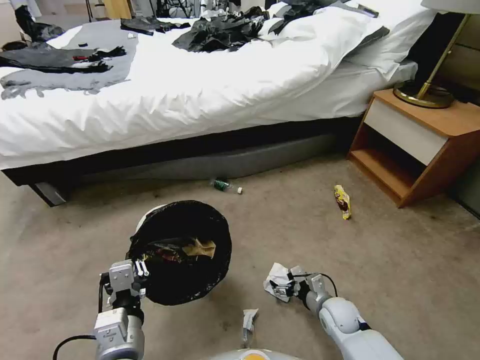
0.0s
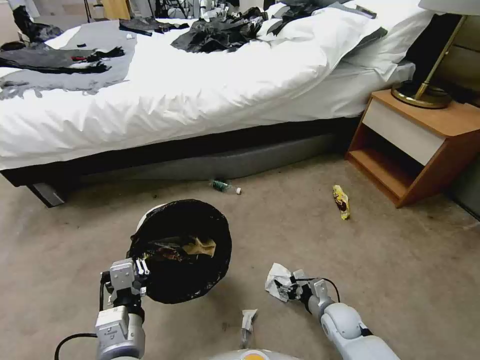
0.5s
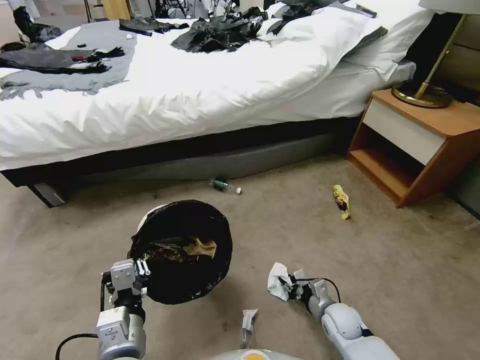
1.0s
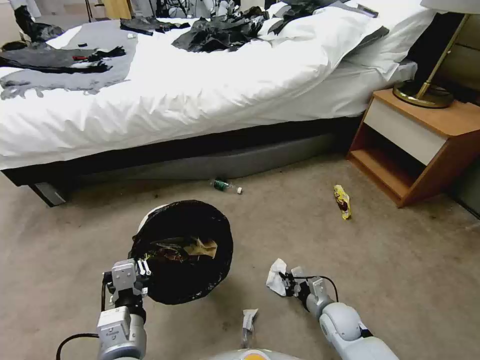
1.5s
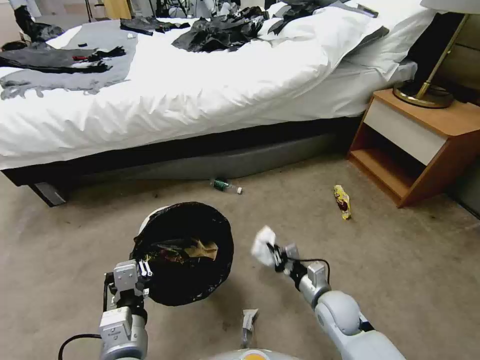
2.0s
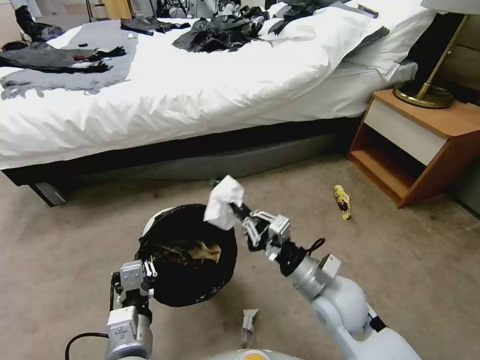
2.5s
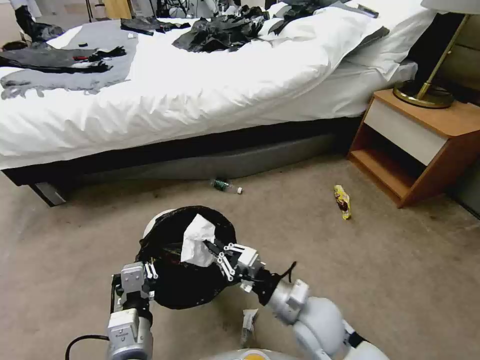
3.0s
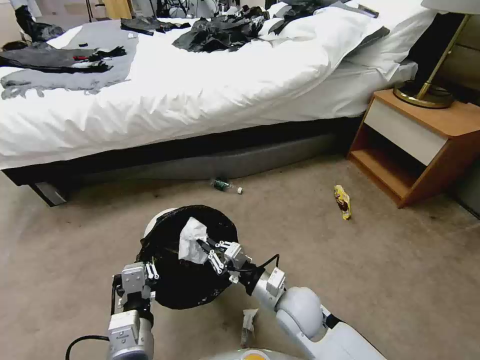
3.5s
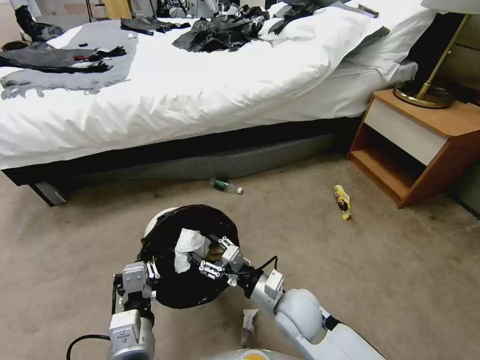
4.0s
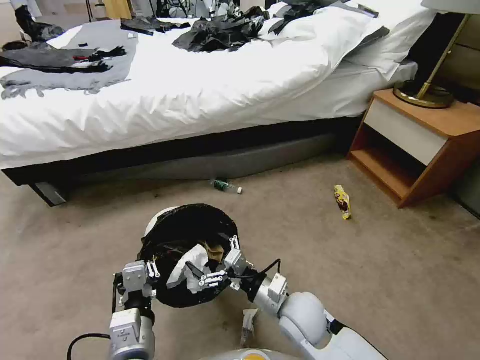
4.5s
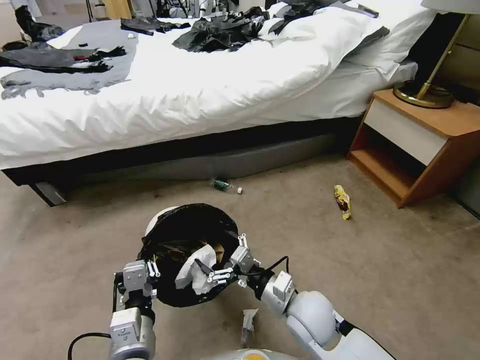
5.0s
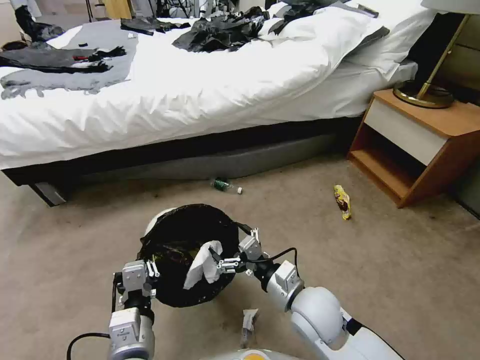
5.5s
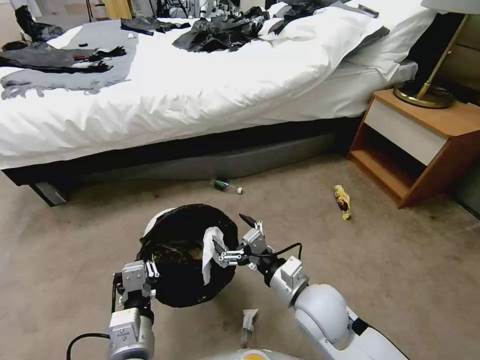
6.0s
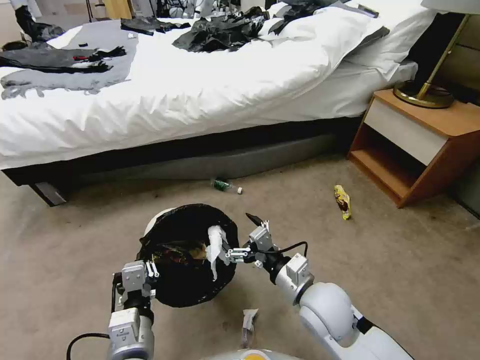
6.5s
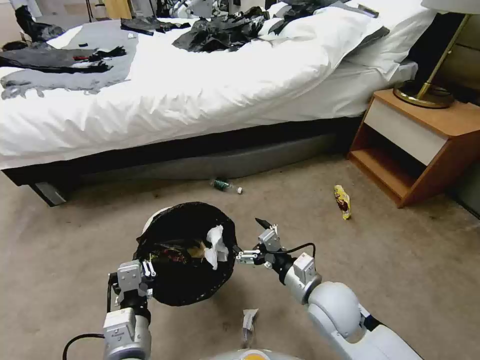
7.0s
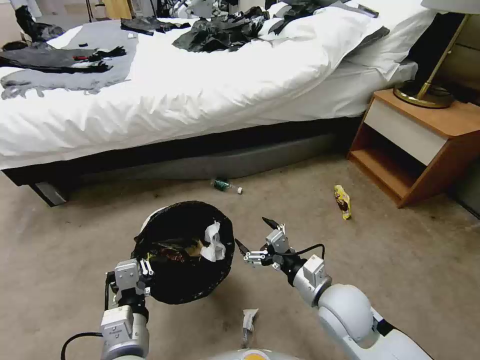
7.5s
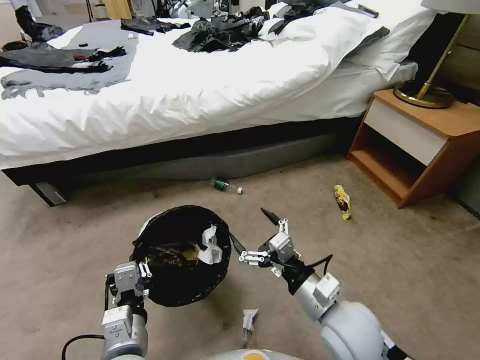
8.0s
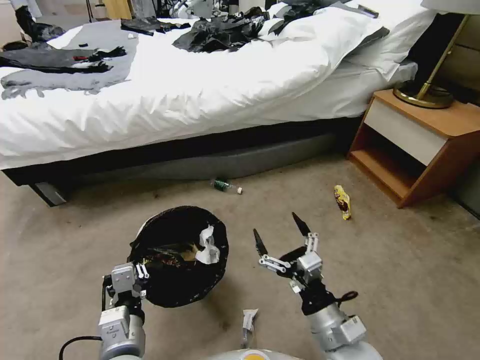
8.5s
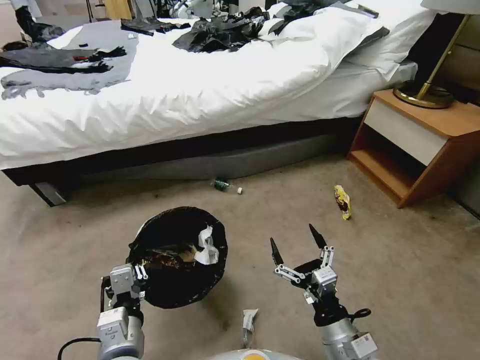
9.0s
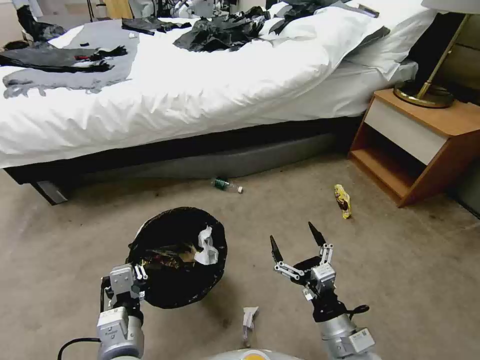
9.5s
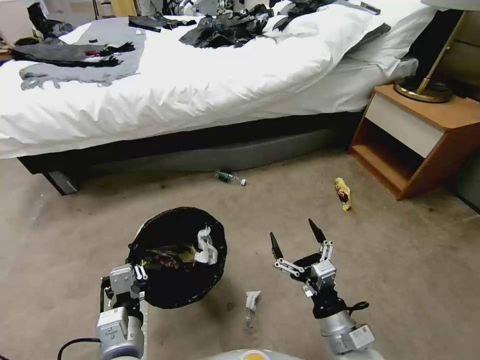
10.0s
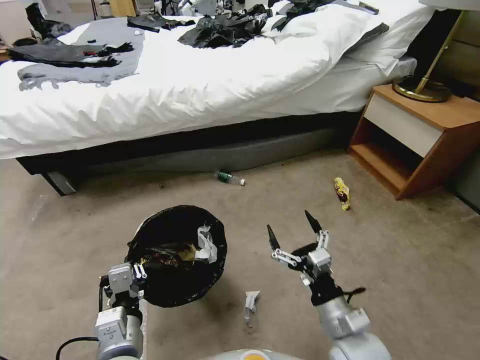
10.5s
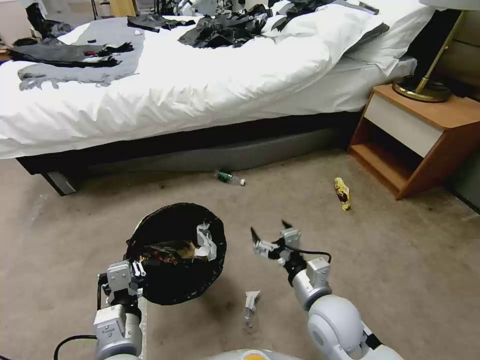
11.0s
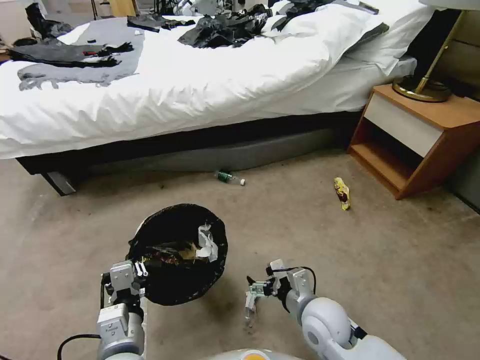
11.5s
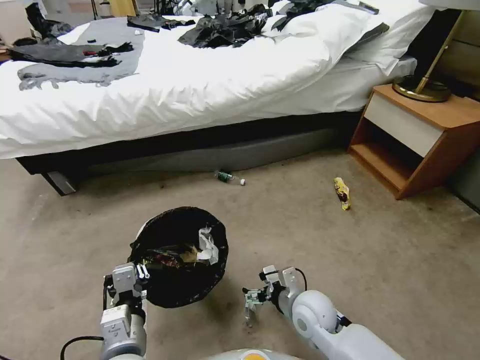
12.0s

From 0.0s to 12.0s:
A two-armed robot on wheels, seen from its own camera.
Task of the whole recording: Pick up the trash bin, then pick up the garbage from the floor and place it into the trash bin.
From 0.0s to 2.0s: The right gripper goes roughly 10 cm upward, and closes its fingers.
From 2.0s to 4.0s: The right gripper goes about 15 cm to the left and upward, and opens its fingers.
From 4.0s to 6.0s: The right gripper heads upward, covering about 5 cm, and opens.
From 6.0s to 8.0s: The right gripper shifts by some 5 cm.
From 8.0s to 10.0s: The right gripper shifts approximately 10 cm downward and backward.
From 10.0s to 12.0s: The right gripper shifts roughly 10 cm forward and to the left.

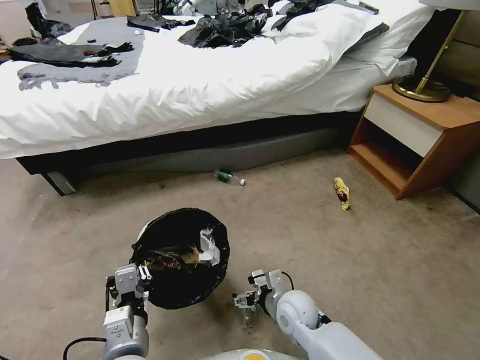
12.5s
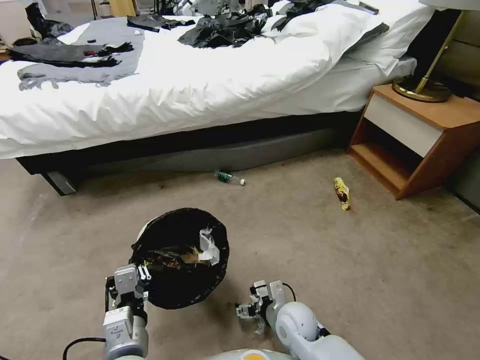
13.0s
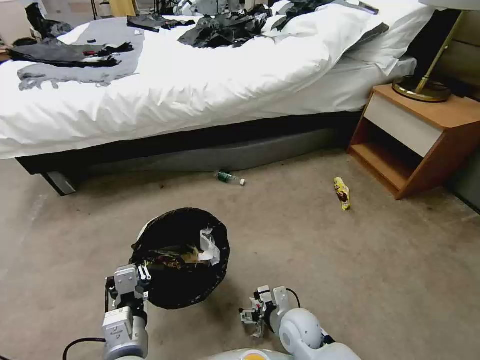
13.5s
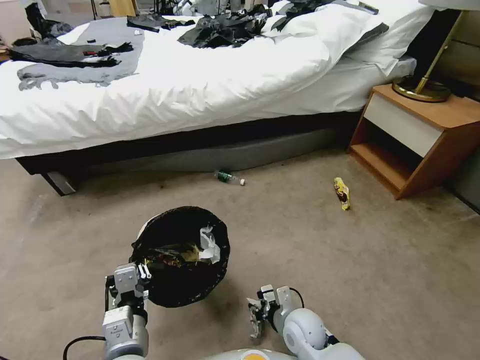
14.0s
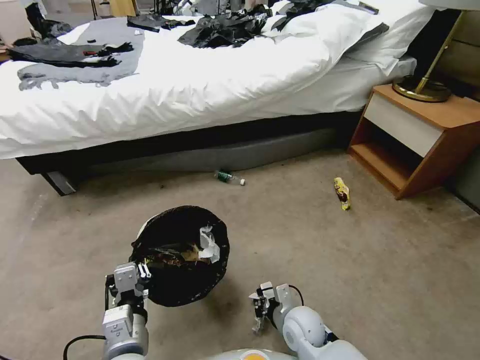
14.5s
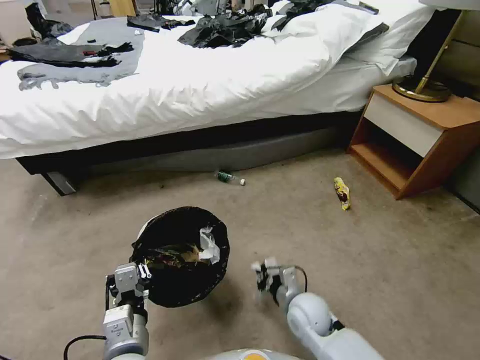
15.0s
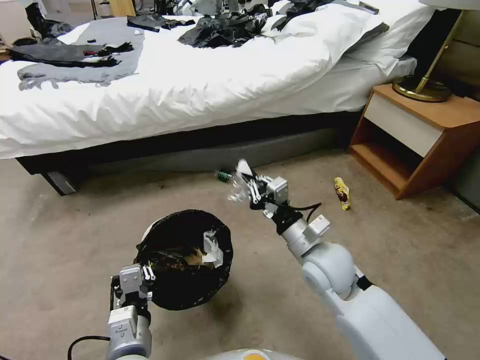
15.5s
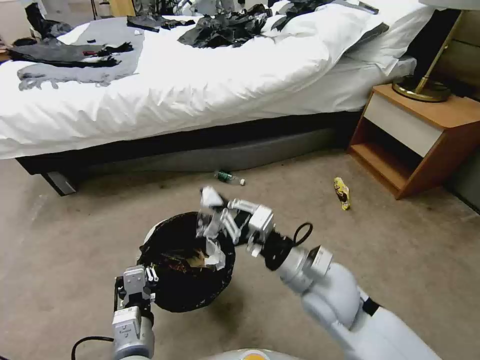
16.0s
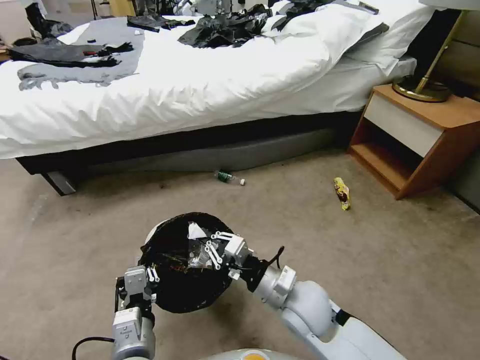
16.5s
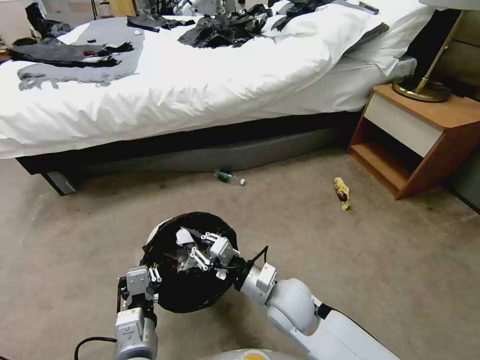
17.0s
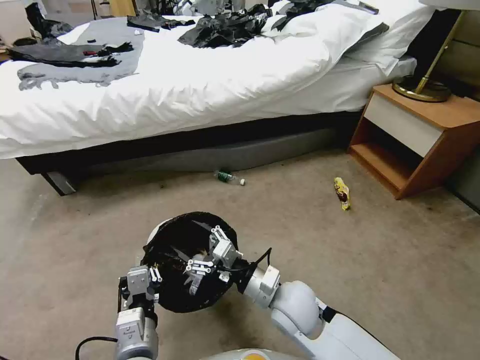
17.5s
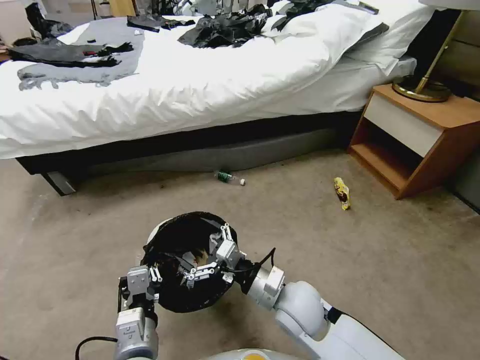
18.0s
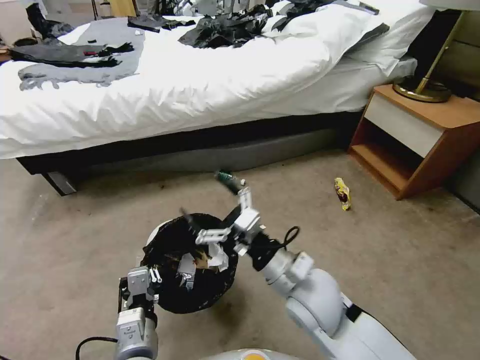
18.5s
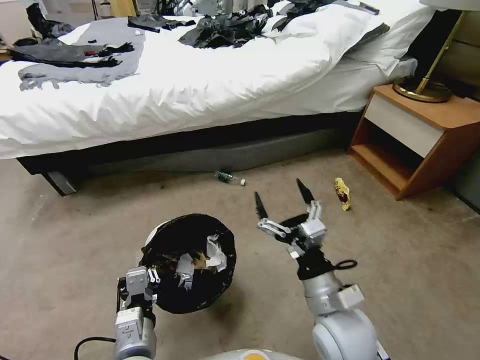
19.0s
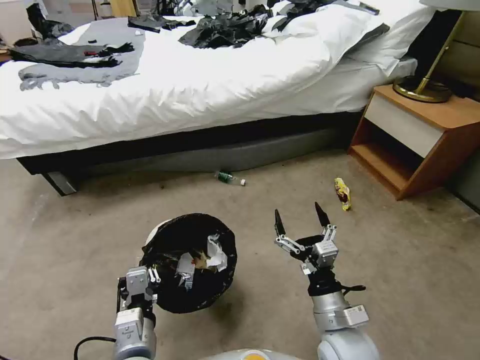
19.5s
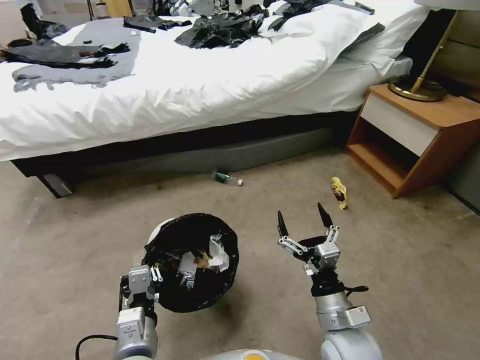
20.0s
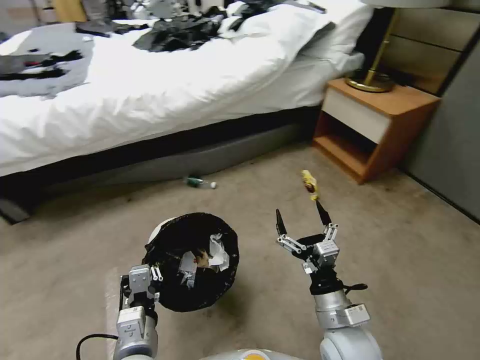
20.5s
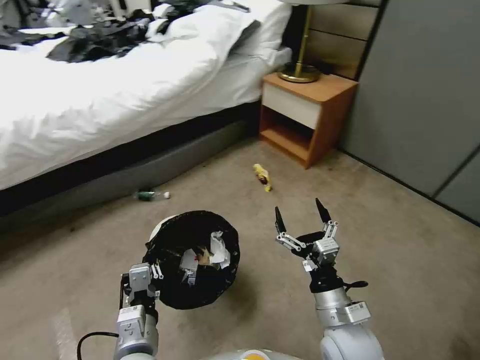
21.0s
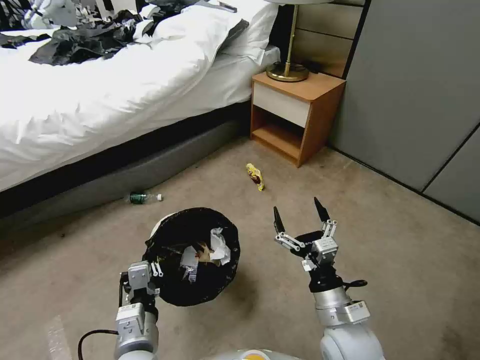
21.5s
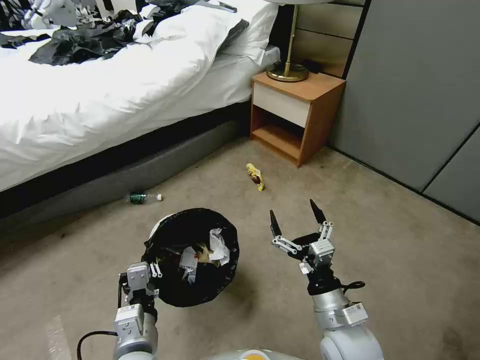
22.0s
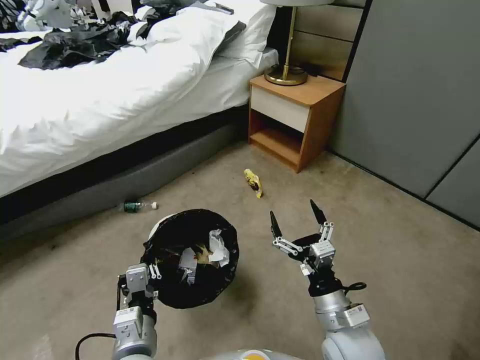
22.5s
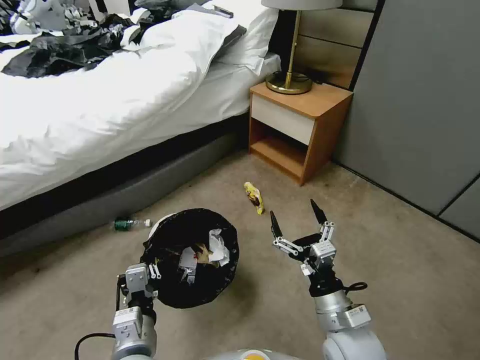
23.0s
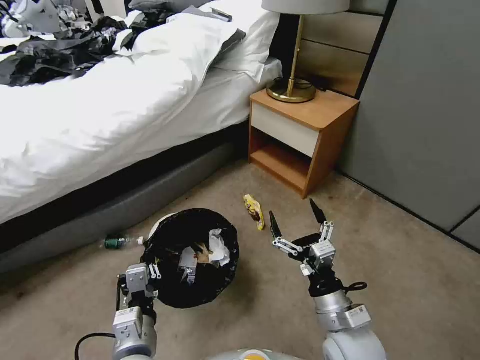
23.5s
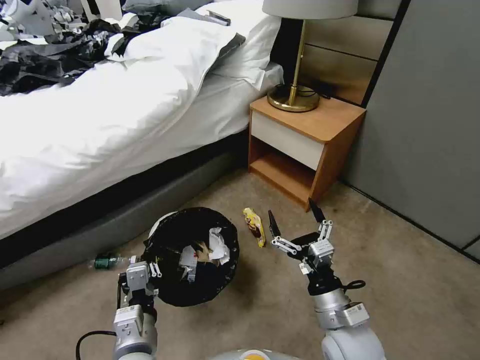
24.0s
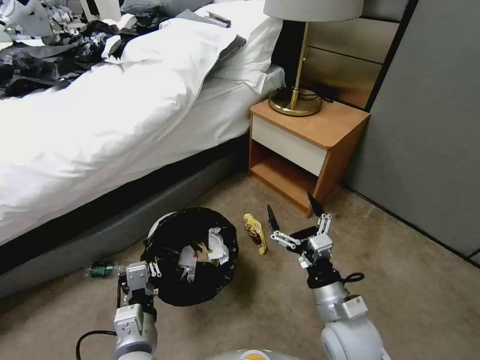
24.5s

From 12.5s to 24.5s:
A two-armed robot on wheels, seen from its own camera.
Task of the whole recording: Pick up the trash bin, then pick up the garbage from the floor and place it into the trash bin.
From 12.5s to 14.5s: The right gripper closes.
From 14.5s to 16.5s: The right gripper moves upward, roughly 15 cm.
From 16.5s to 18.5s: The right gripper goes approximately 5 cm upward, and opens up.
From 18.5s to 20.5s: The right gripper shifts roughly 15 cm downward, to the right and backward.

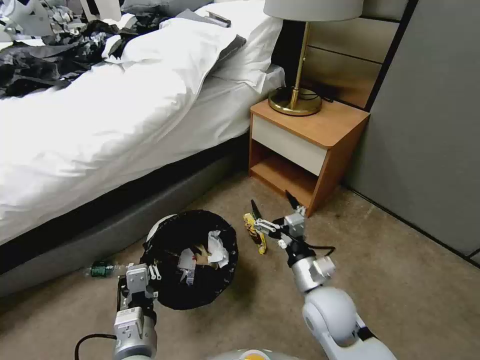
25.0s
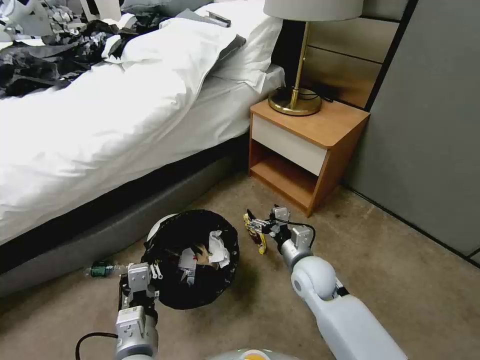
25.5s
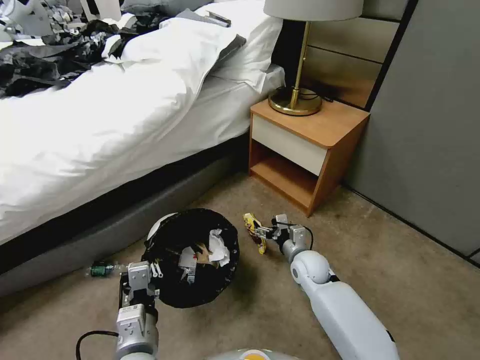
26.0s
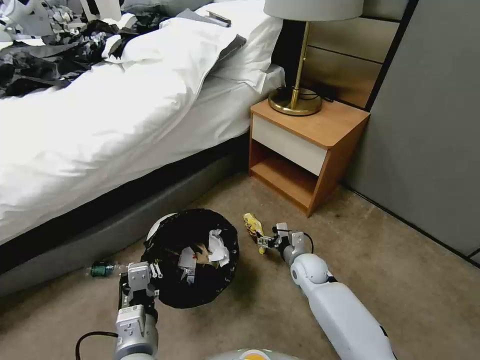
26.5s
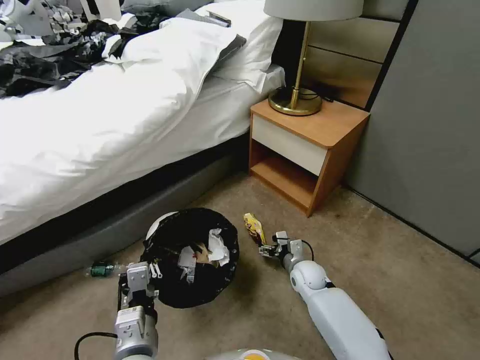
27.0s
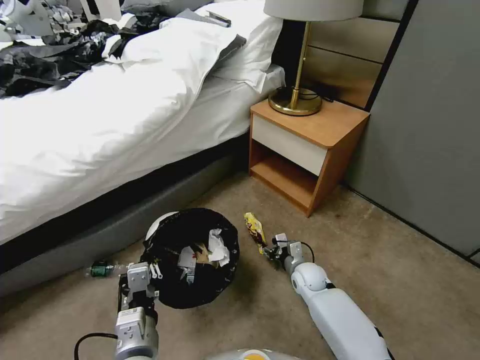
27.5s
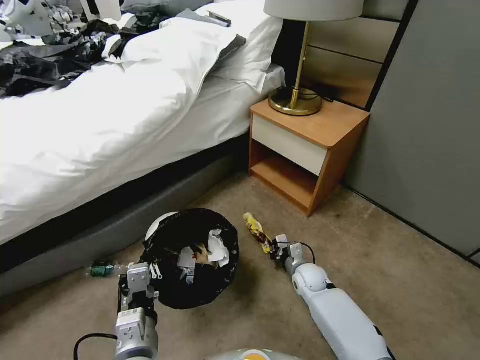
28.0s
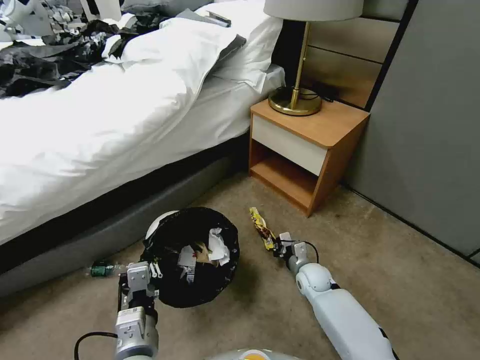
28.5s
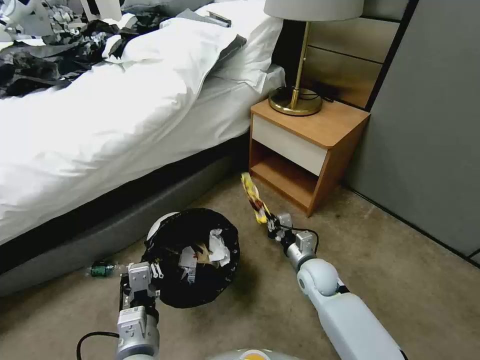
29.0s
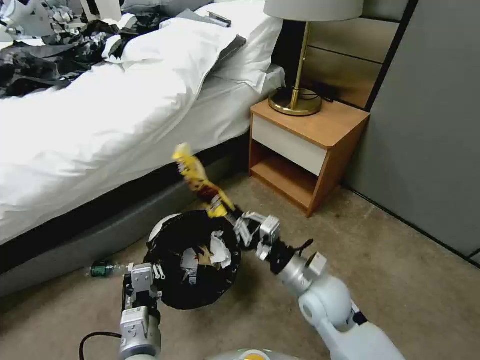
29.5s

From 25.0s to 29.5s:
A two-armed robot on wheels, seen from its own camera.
Task of the whole recording: Pick up the trash bin, then pick up the garbage from the floor and place it into the trash bin.
From 25.0s to 27.0s: The right gripper is displaced downward and forward by about 20 cm.
From 27.0s to 29.5s: The right gripper is displaced upward and backward by some 20 cm, and closes.
